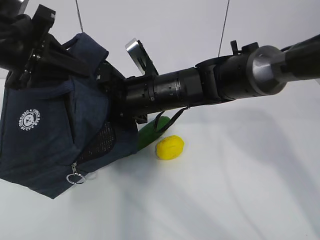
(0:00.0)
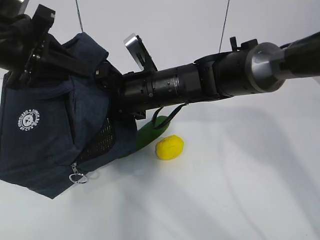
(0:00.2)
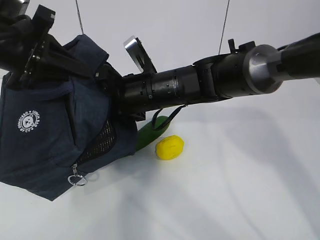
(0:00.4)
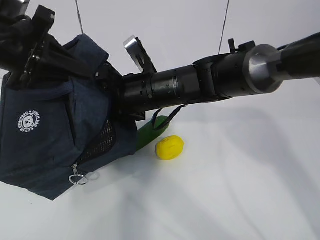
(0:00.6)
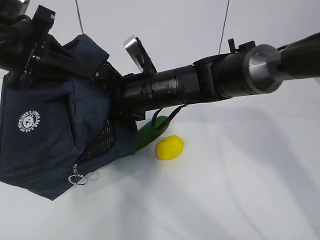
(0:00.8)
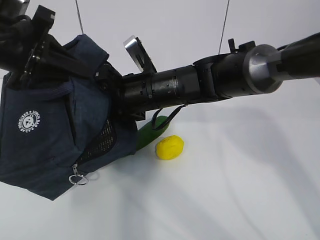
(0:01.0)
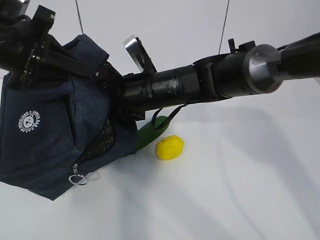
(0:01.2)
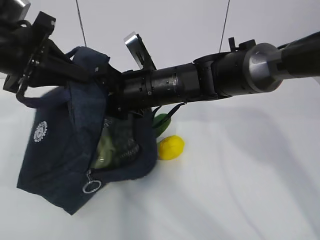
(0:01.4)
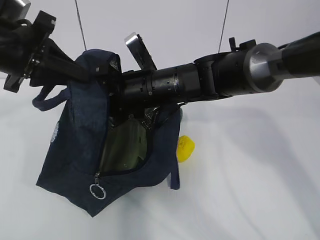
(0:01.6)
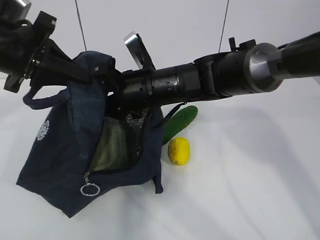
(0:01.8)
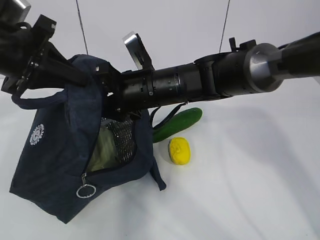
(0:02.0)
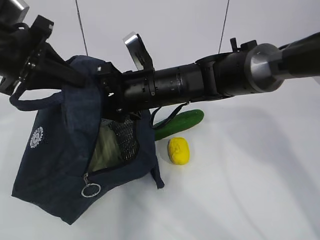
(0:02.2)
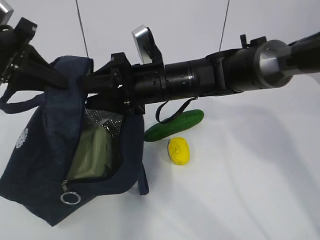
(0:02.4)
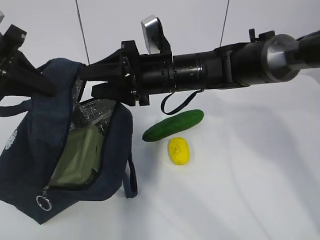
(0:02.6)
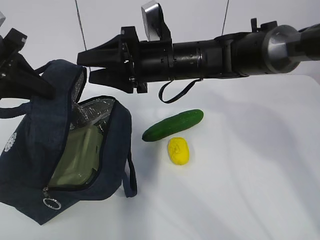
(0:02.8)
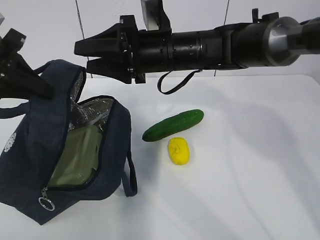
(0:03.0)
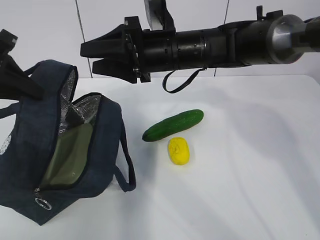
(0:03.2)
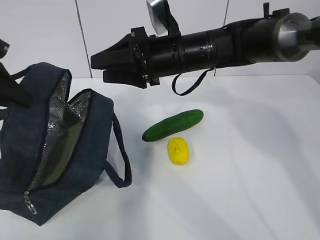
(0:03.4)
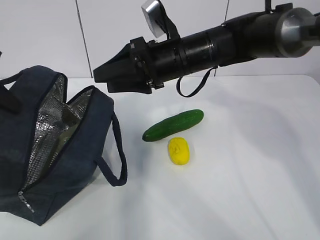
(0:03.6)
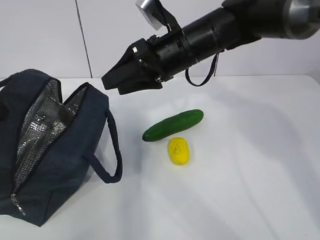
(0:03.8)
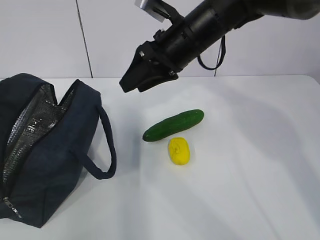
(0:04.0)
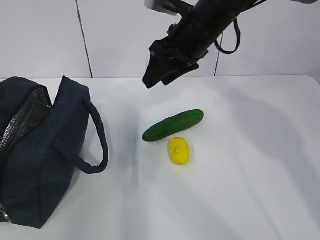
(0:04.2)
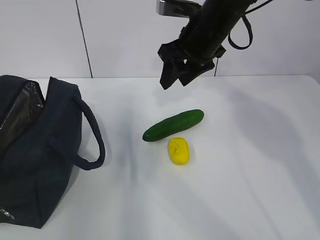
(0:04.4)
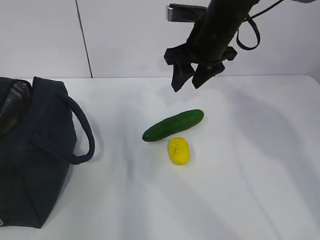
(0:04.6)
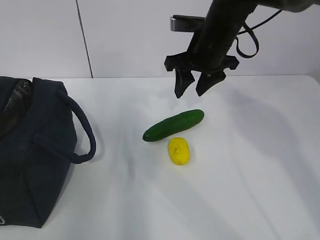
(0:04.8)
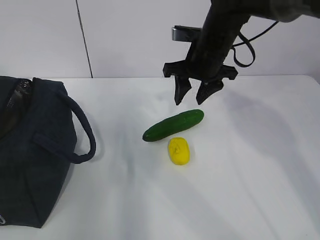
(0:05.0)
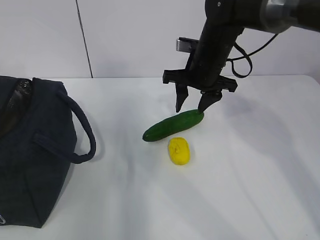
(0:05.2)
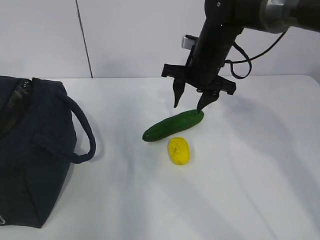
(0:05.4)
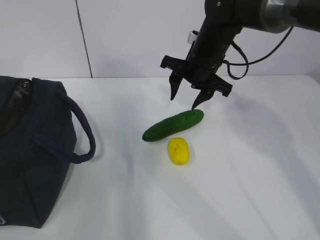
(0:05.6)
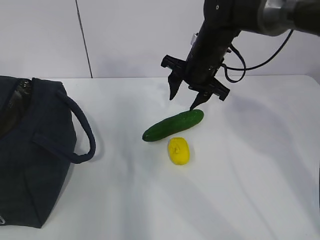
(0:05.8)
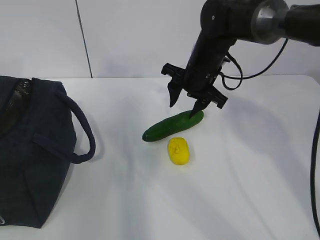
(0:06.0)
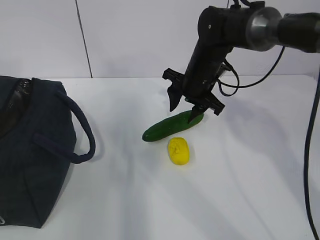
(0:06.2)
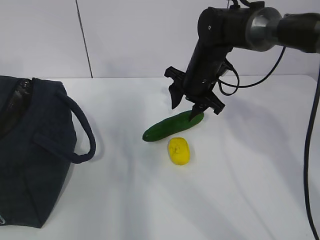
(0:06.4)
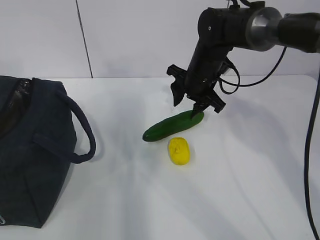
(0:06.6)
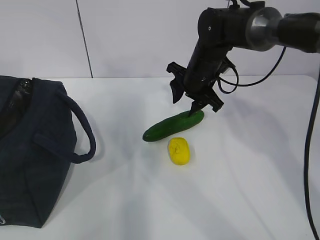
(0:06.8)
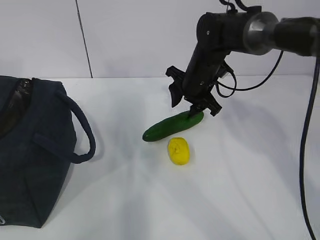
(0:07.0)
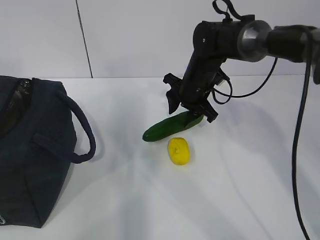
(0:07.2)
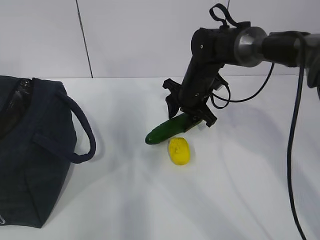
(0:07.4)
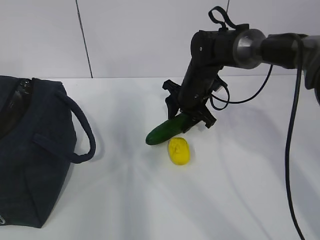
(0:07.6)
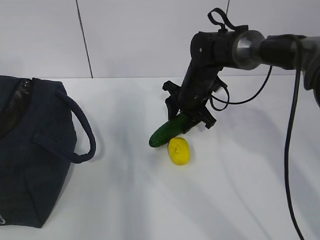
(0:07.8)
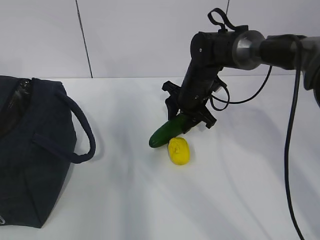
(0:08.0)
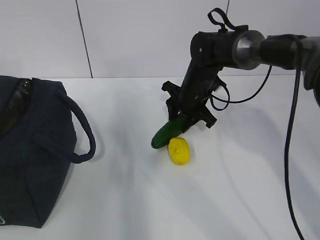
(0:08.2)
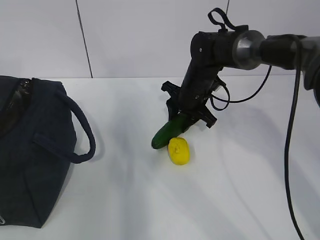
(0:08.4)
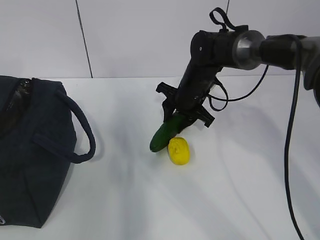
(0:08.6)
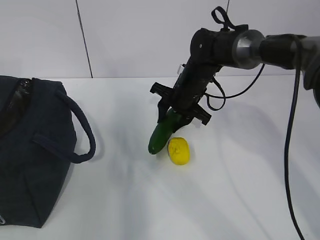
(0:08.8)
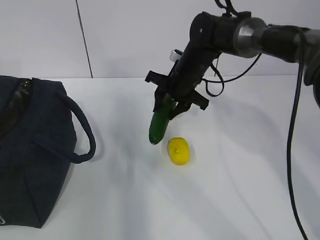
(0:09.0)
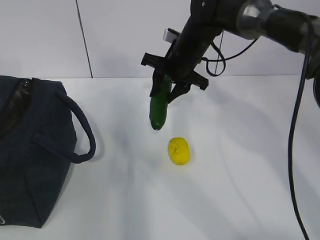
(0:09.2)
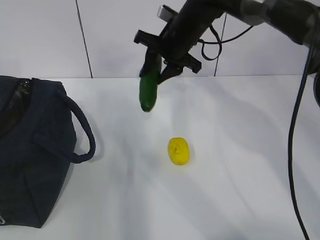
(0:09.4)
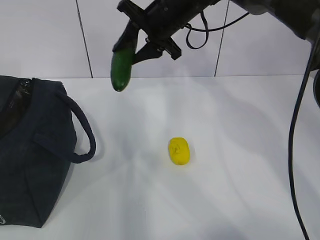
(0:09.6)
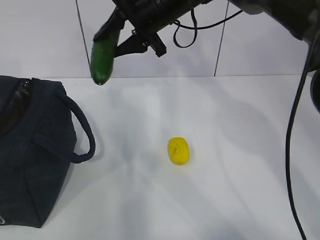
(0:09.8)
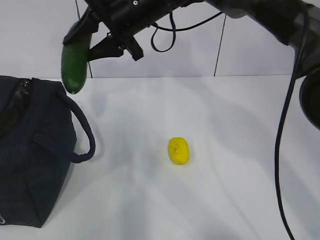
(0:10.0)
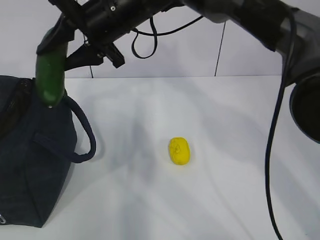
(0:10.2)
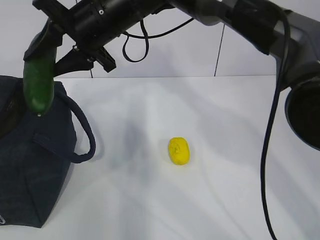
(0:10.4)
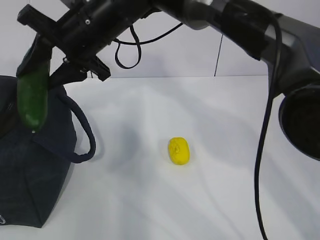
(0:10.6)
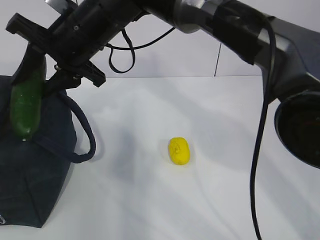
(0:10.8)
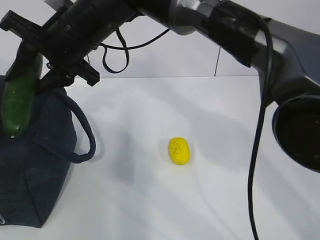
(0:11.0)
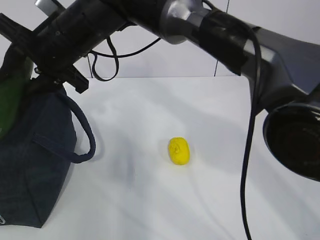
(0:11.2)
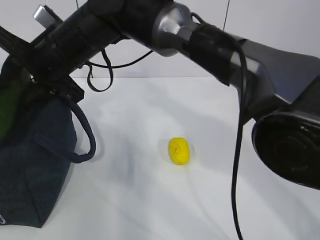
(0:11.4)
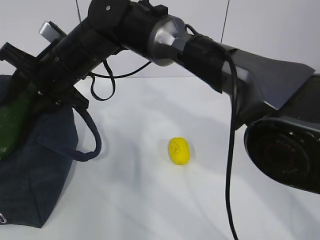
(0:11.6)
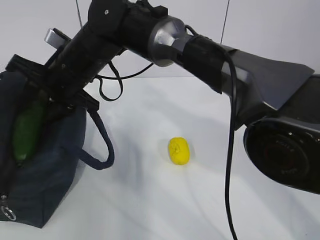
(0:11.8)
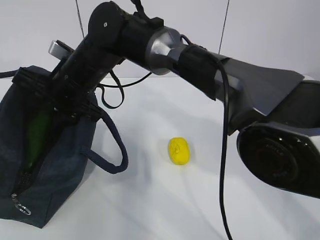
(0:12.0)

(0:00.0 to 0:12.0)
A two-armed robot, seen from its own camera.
Step, 0:00.0 - 0:02.8: Grab the cucumber with your right hand.
Step, 0:03.2 - 0:07.2: Place it into the bag with your right hand.
0:01.6 - 0:03.0: The right gripper ends up about 5 cm from where it was.
0:03.0 - 0:04.4: The right gripper heads to the right, covering some 5 cm. Meanwhile the left gripper travels to the left by some 5 cm, and opens.
0:04.4 - 0:06.0: The right gripper shifts roughly 10 cm downward. The left gripper shifts roughly 5 cm upward, and opens up.
0:06.0 - 0:07.6: The right gripper shifts roughly 5 cm downward.
0:09.0 - 0:10.4: The right gripper heads upward, to the left and backward, covering about 20 cm.
0:10.4 - 0:12.0: The right gripper moves downward and to the left, roughly 10 cm.

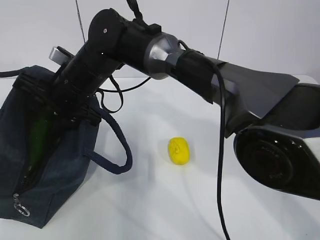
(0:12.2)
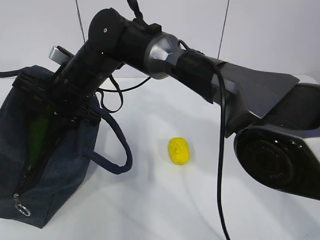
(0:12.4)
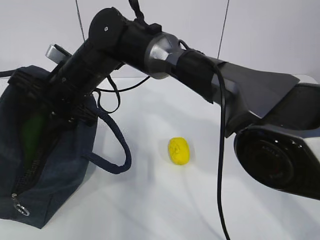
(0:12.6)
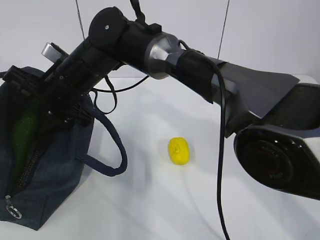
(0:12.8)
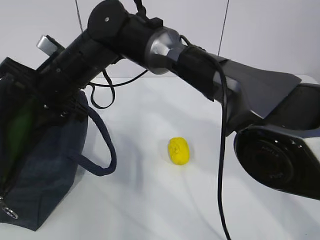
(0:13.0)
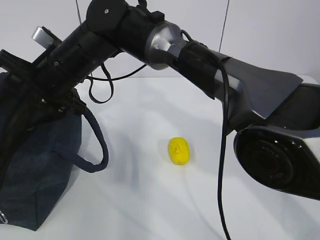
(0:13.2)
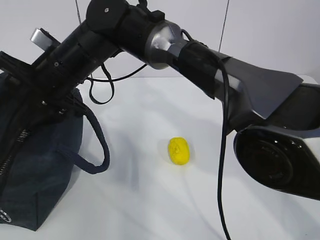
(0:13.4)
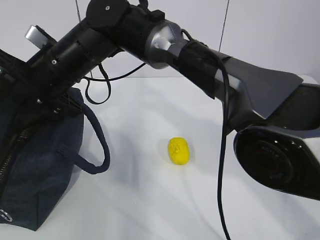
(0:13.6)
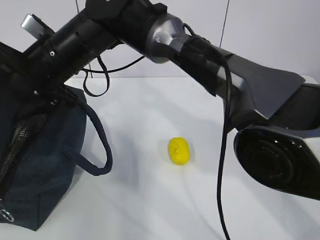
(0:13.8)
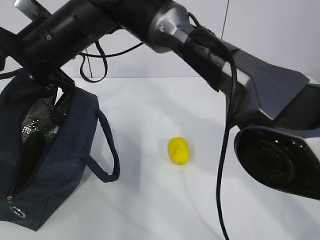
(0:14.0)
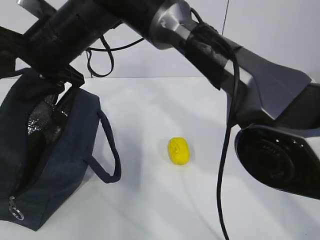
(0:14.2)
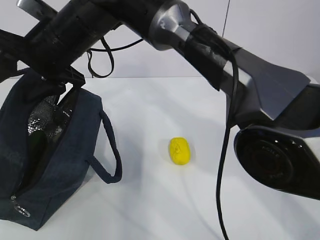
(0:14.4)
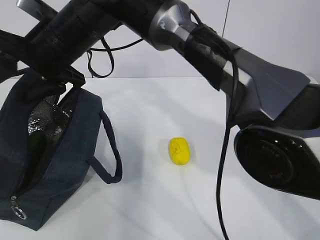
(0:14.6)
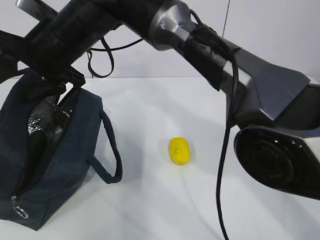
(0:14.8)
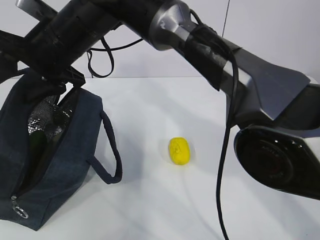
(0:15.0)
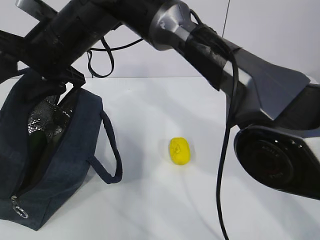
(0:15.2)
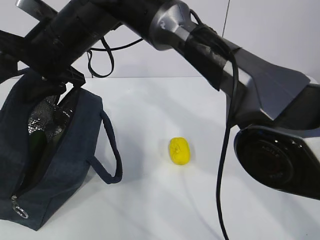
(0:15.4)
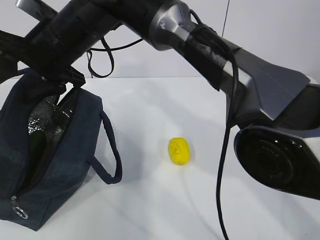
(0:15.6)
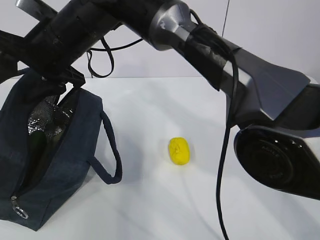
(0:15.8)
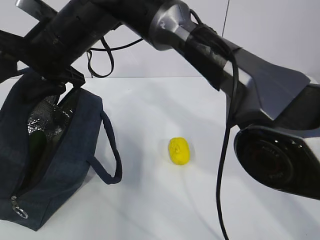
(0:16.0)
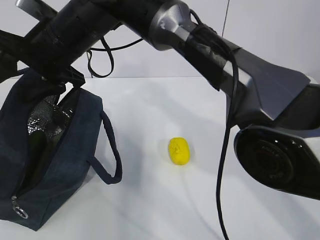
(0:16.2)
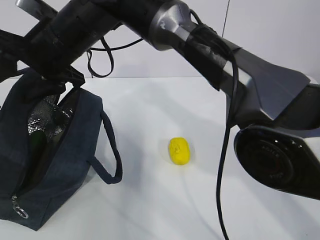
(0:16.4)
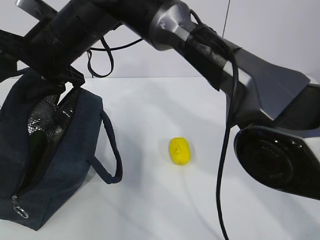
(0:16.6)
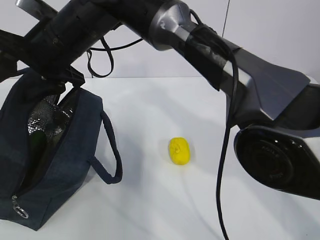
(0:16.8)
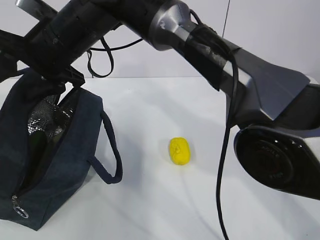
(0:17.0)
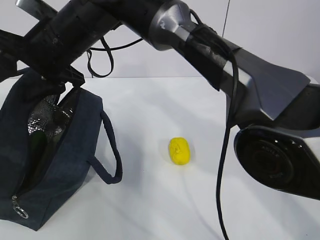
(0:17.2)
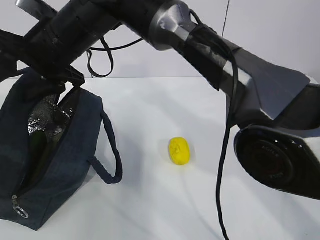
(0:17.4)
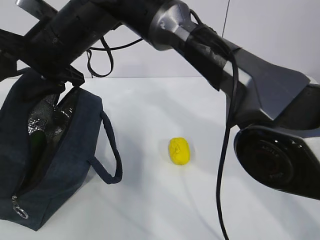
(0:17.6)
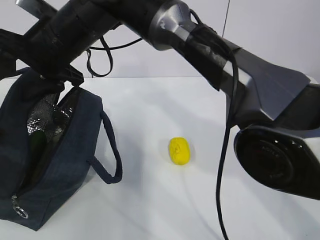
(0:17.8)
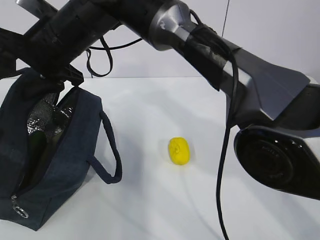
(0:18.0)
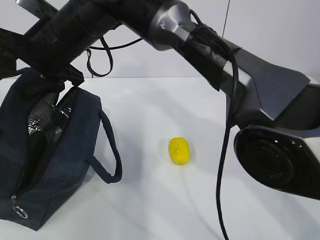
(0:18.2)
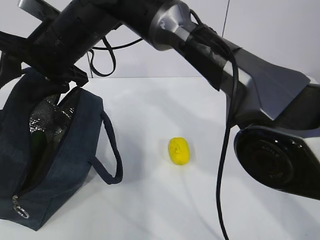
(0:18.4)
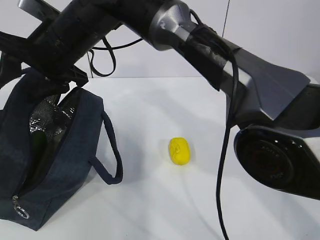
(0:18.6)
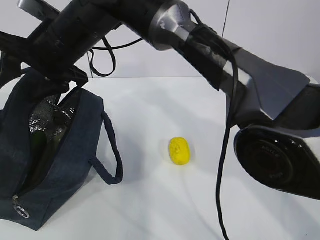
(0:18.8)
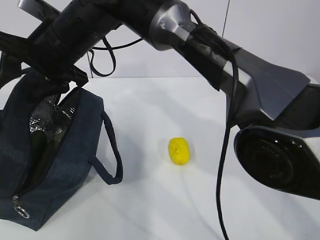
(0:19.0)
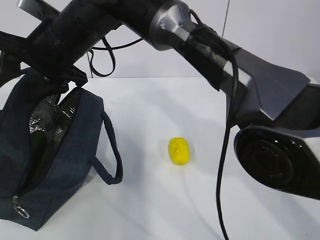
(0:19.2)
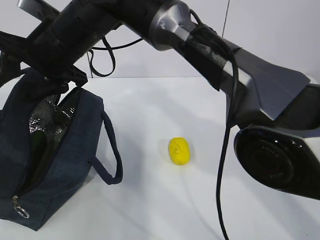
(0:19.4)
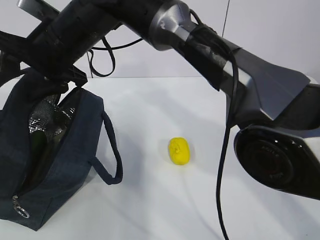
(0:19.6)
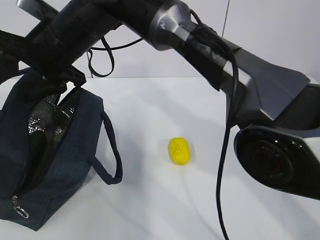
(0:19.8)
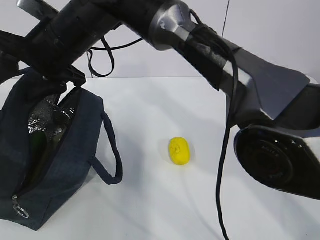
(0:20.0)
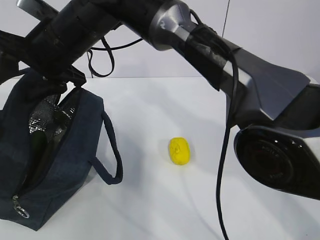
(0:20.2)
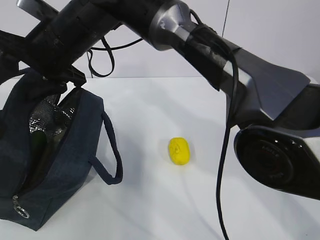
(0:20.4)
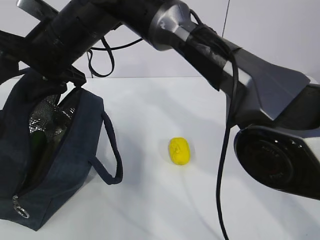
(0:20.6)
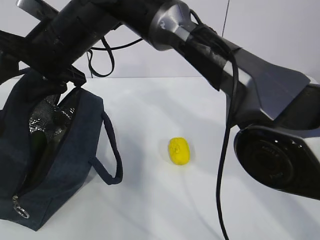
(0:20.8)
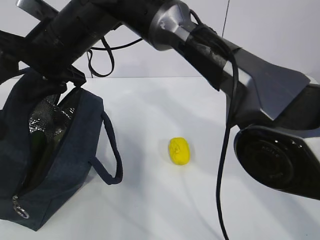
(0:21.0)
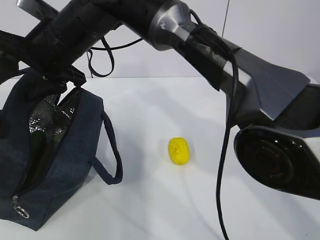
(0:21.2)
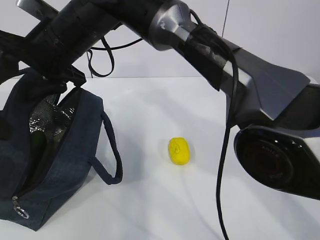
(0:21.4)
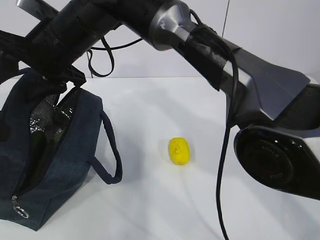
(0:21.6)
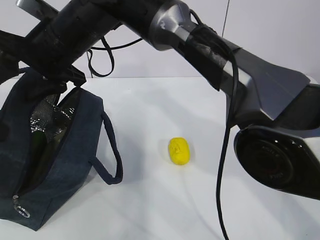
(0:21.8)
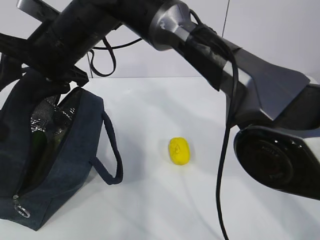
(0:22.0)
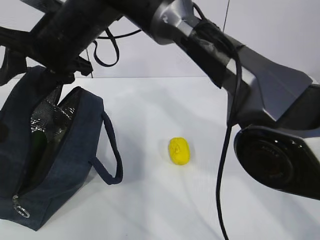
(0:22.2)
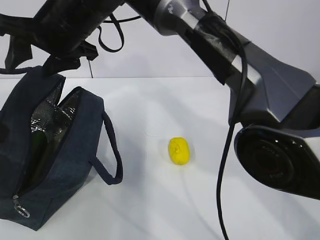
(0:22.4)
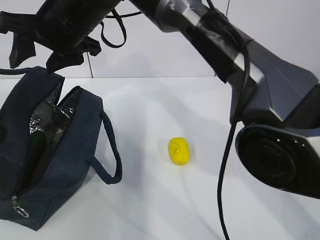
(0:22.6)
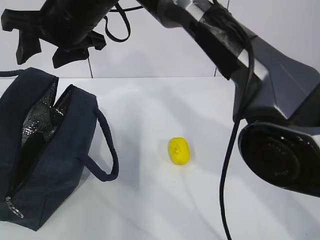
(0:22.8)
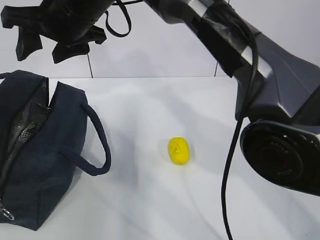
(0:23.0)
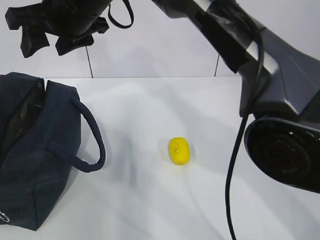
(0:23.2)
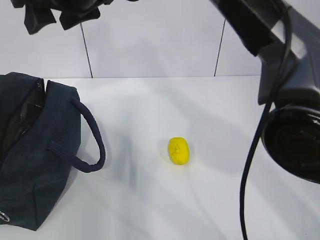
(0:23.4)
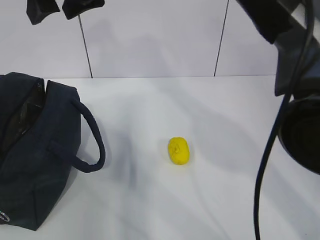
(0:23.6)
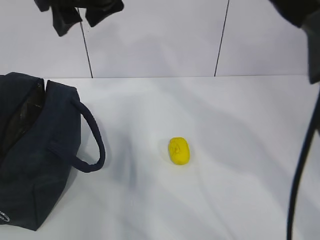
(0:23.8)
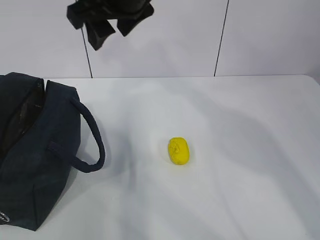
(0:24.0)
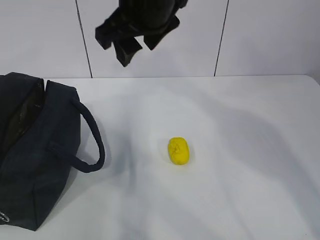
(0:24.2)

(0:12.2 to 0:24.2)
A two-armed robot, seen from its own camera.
Step, 0:12.2 - 0:18.8: Grab the lemon with your right hand.
Step, 0:19.0 - 0:21.4: Secure the lunch bag with your left hand.
Step, 0:21.6 - 0:23.6: Grab the lunch bag with your right hand.
0:12.2 - 0:13.8: The right gripper changes place by about 5 cm.
0:13.8 - 0:15.2: The left gripper moves backward, approximately 5 cm.
0:15.2 - 0:16.6: The left gripper shifts by about 5 cm.
0:16.6 - 0:18.2: The left gripper closes up.
0:18.2 - 0:21.2: Both grippers stay put.
0:21.2 - 0:22.6: The left gripper closes up.
0:22.6 - 0:24.2: The right gripper is displaced to the right by about 10 cm.
